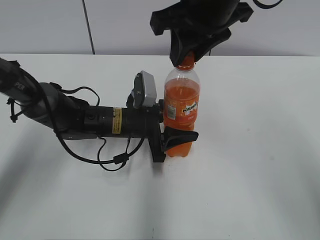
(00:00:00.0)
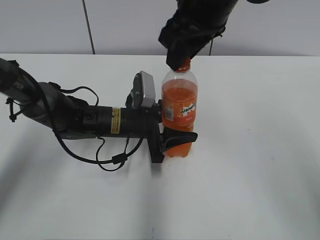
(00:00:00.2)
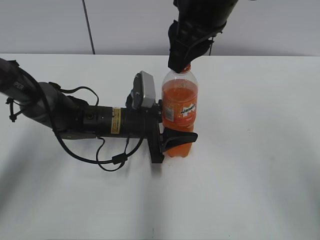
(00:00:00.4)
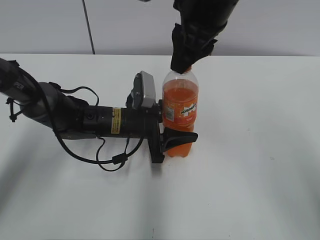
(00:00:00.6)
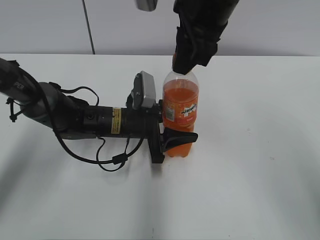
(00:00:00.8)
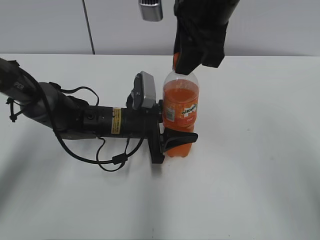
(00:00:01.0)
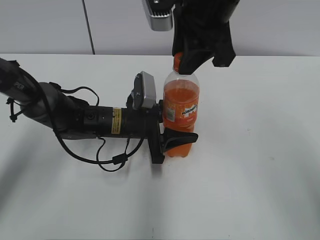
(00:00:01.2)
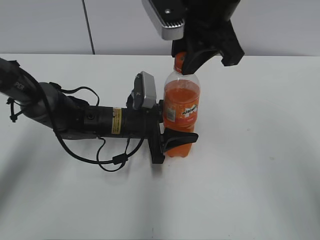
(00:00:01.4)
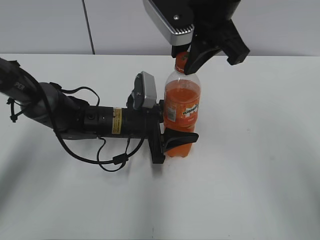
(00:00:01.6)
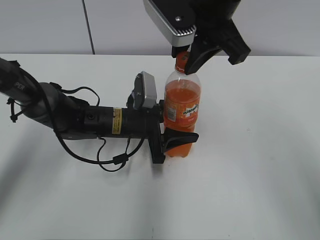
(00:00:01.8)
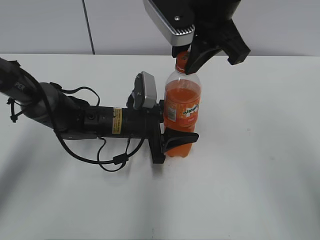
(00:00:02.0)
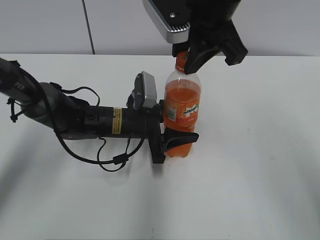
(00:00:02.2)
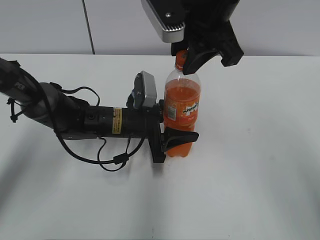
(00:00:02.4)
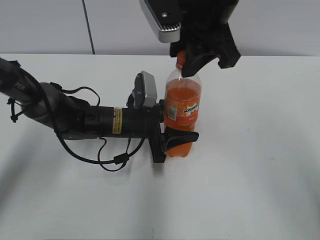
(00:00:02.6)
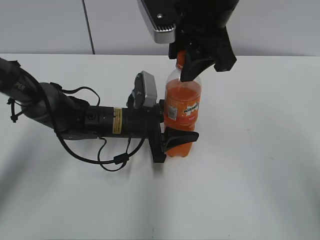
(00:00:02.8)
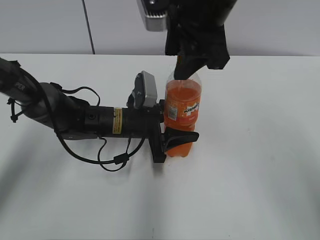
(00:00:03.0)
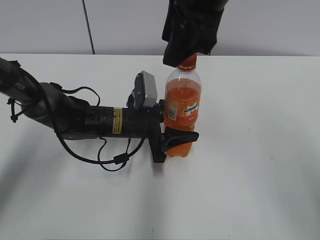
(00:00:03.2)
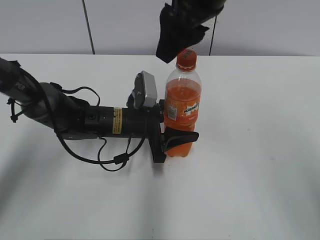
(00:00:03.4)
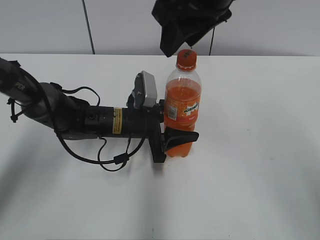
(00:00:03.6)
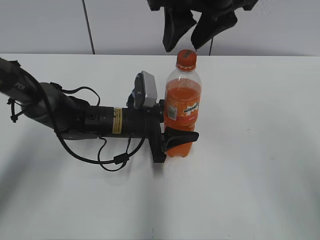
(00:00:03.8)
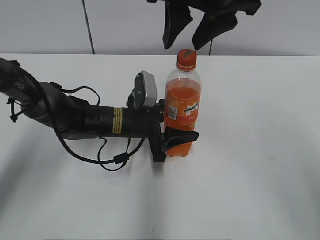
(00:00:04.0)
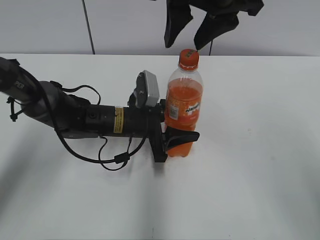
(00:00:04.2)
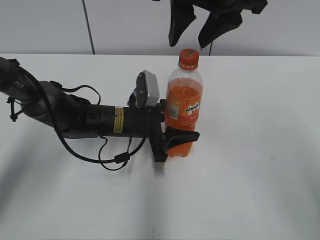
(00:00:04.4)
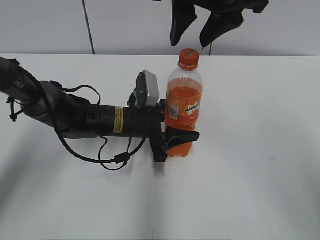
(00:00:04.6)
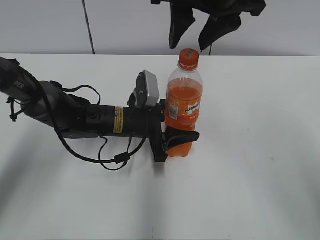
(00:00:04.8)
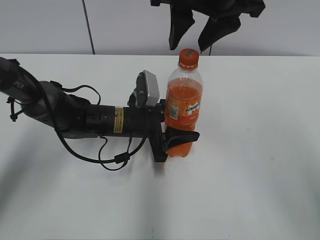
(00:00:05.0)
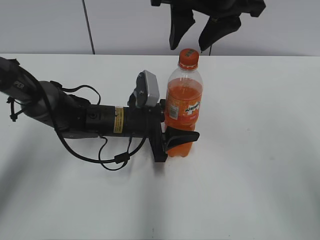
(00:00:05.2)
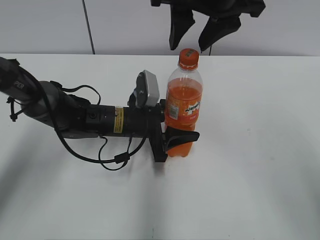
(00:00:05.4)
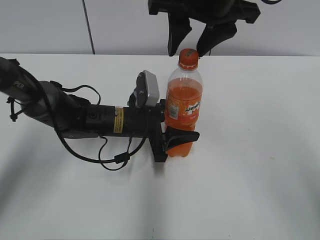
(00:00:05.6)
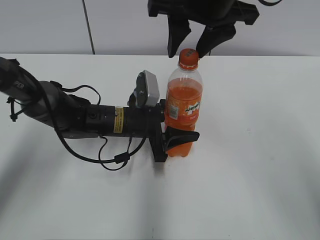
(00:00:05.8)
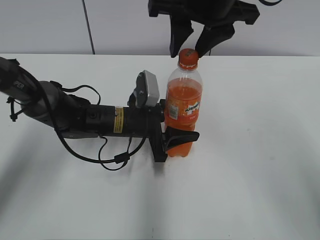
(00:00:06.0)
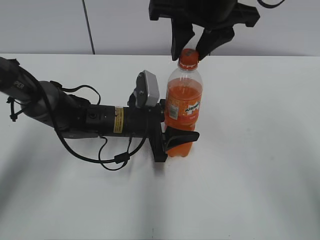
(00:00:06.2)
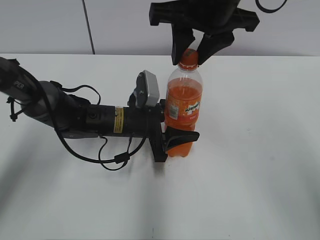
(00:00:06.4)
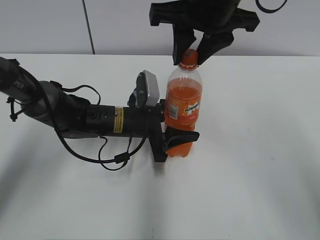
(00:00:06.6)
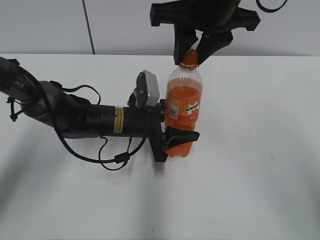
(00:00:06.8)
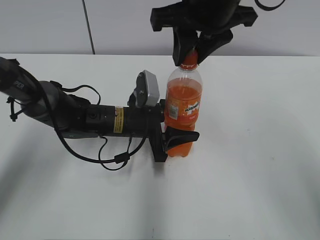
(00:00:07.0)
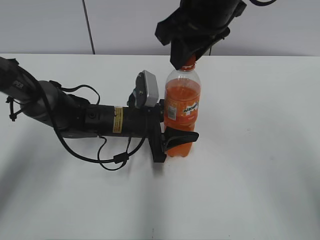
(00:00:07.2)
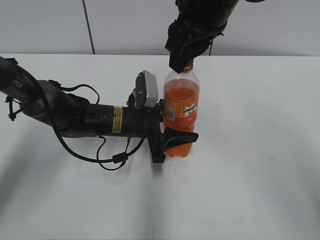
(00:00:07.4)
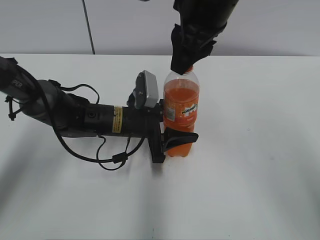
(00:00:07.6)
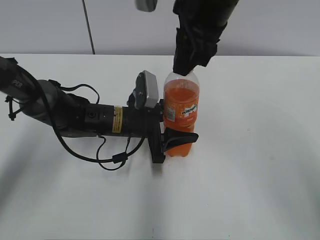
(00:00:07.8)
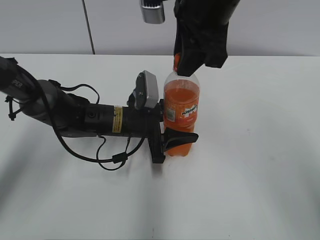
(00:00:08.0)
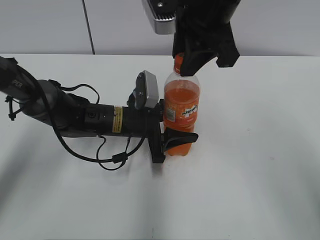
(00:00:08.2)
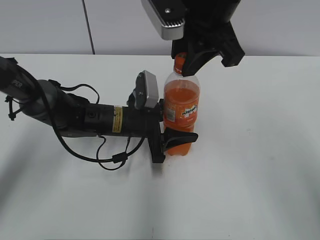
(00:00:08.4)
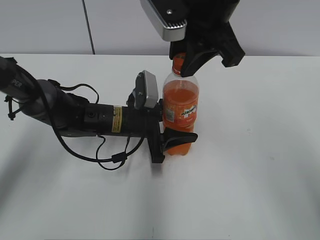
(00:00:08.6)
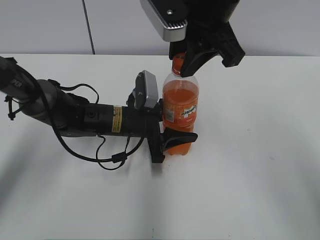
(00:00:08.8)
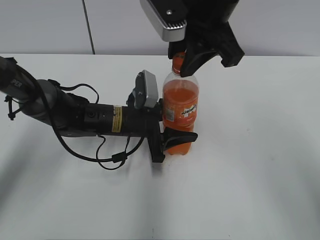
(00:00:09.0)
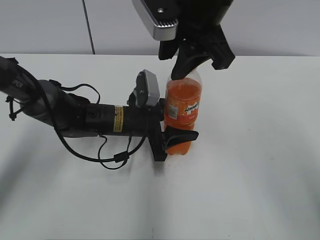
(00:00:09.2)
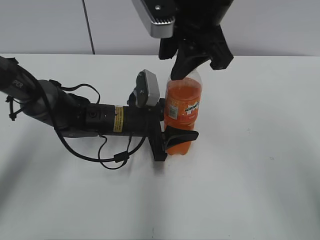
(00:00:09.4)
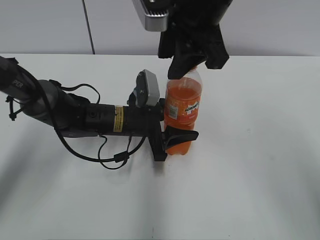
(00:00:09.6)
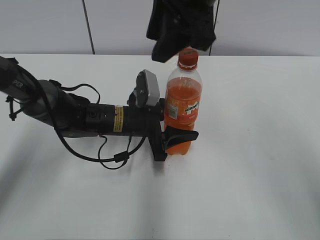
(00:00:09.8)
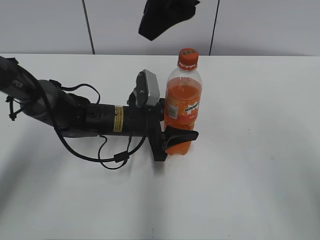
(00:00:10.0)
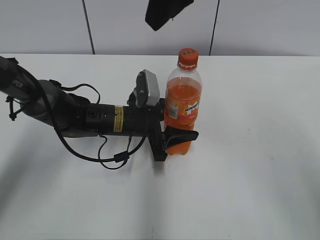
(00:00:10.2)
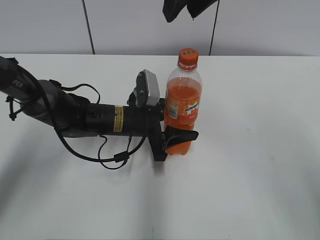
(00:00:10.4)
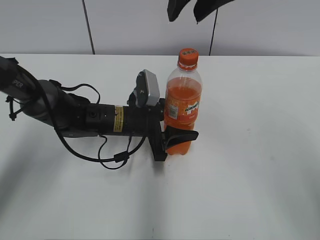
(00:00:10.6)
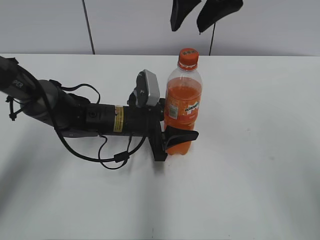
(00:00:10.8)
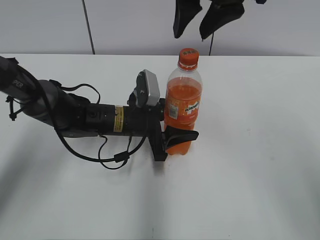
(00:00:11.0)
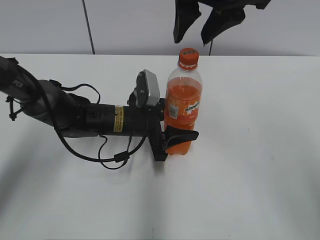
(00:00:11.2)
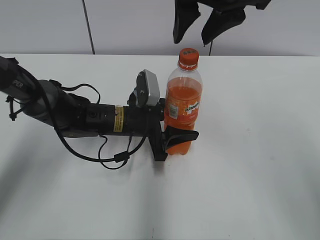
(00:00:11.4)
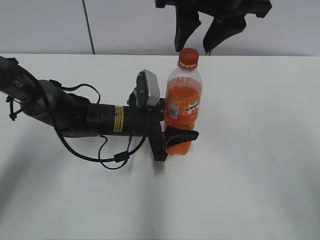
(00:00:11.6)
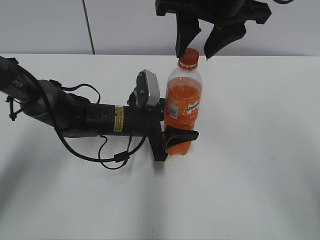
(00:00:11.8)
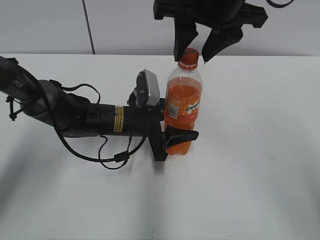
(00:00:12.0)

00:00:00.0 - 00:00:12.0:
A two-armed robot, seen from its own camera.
00:00:01.6 - 00:00:03.0: The right gripper opens its fingers.
00:00:04.4 - 00:00:06.0: The grippers stay close to where they were, moving slightly.
00:00:09.0 - 00:00:10.4: The right gripper travels upward by roughly 5 cm.

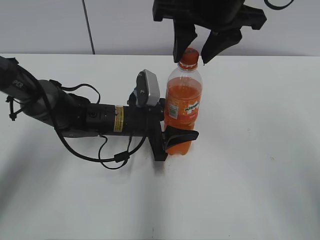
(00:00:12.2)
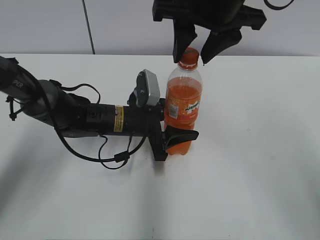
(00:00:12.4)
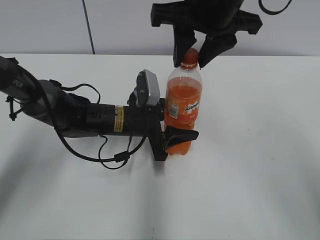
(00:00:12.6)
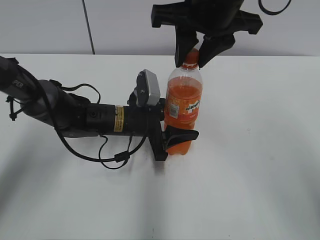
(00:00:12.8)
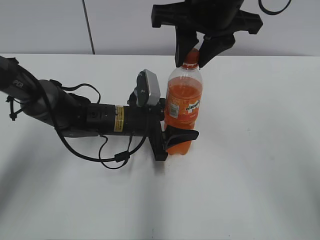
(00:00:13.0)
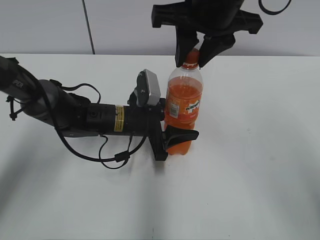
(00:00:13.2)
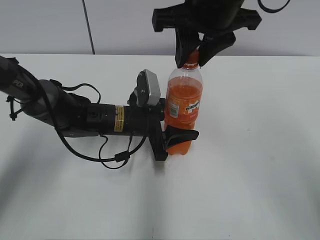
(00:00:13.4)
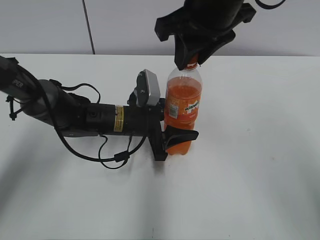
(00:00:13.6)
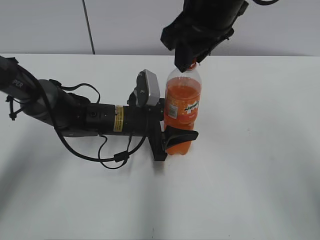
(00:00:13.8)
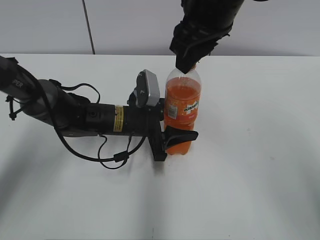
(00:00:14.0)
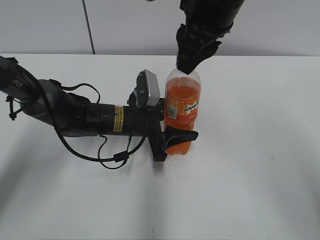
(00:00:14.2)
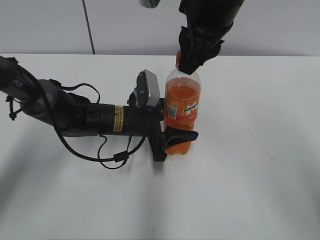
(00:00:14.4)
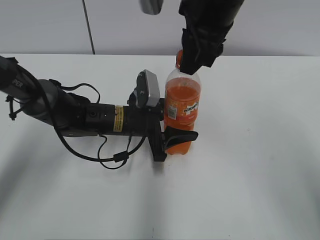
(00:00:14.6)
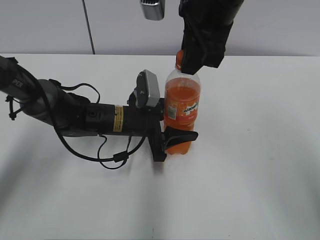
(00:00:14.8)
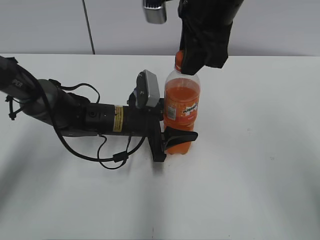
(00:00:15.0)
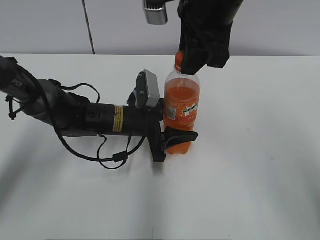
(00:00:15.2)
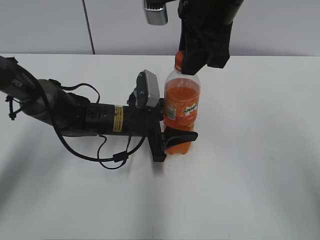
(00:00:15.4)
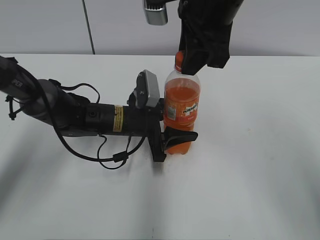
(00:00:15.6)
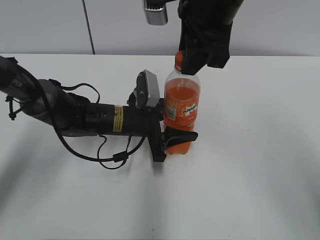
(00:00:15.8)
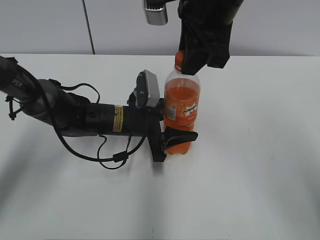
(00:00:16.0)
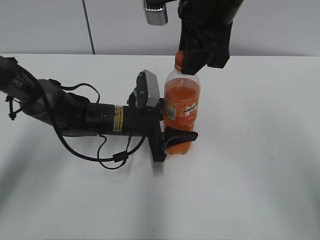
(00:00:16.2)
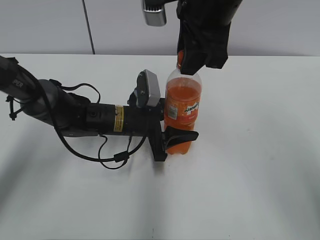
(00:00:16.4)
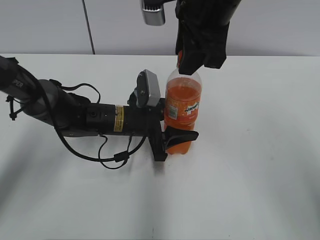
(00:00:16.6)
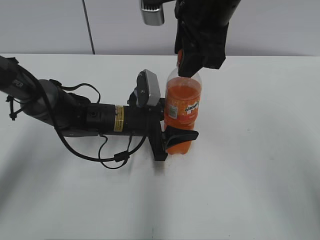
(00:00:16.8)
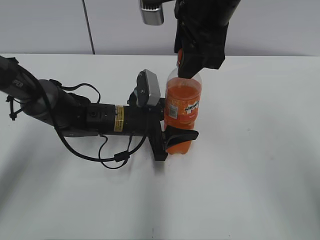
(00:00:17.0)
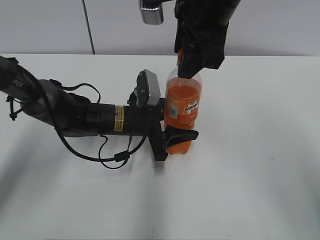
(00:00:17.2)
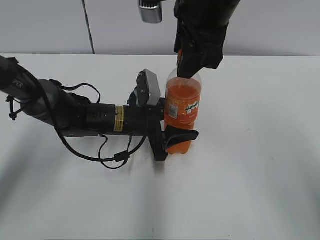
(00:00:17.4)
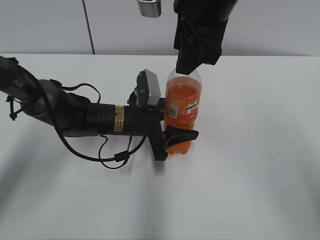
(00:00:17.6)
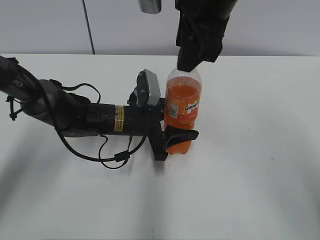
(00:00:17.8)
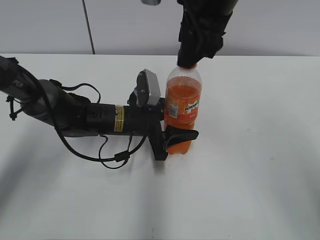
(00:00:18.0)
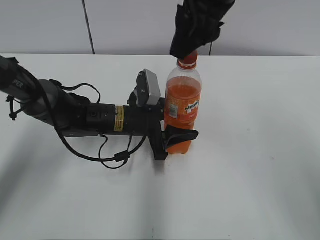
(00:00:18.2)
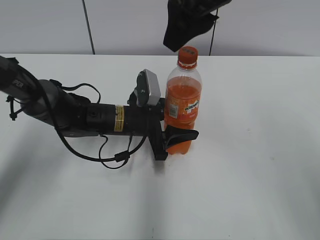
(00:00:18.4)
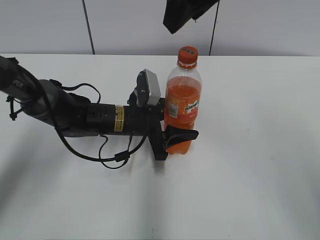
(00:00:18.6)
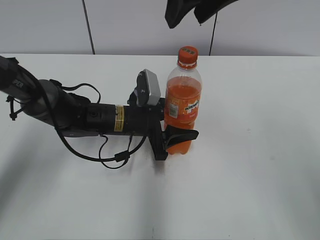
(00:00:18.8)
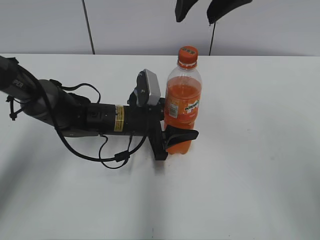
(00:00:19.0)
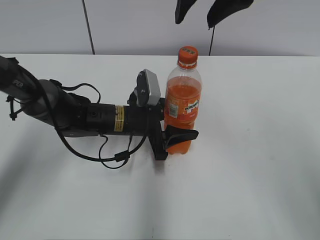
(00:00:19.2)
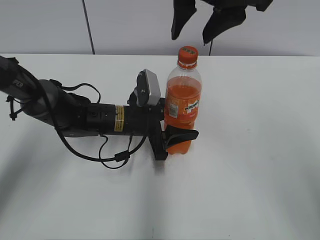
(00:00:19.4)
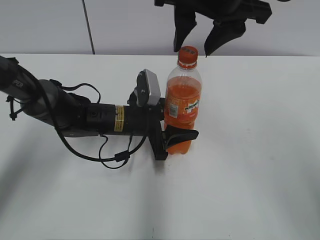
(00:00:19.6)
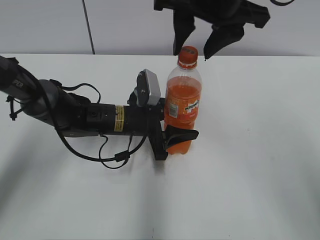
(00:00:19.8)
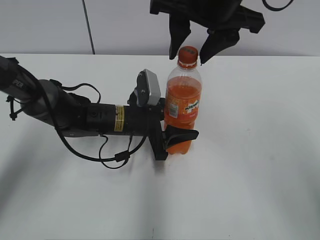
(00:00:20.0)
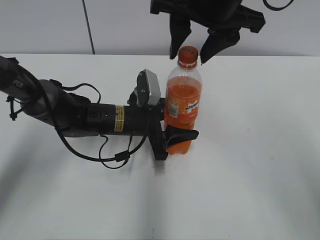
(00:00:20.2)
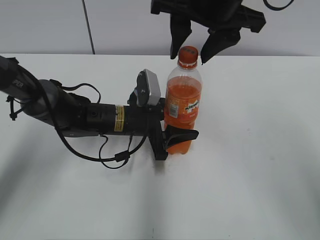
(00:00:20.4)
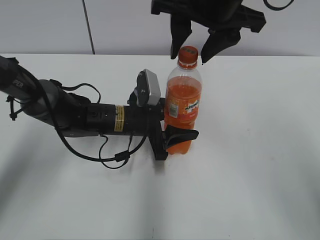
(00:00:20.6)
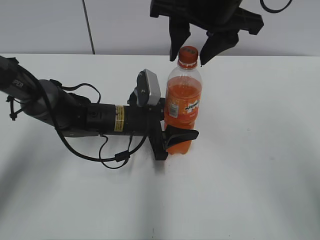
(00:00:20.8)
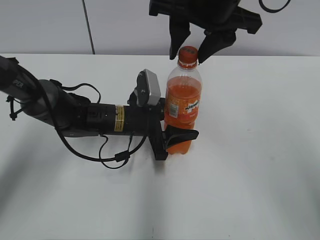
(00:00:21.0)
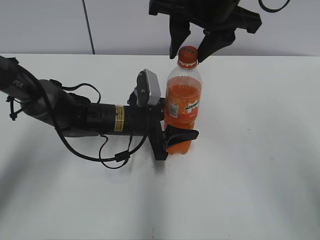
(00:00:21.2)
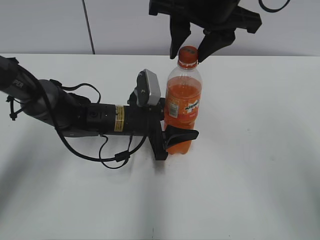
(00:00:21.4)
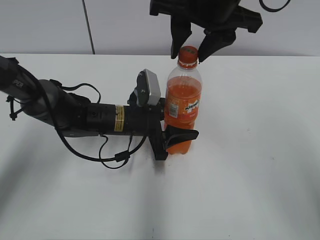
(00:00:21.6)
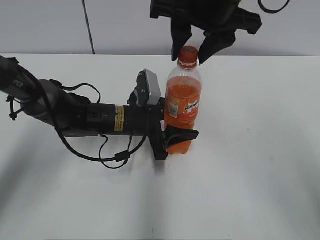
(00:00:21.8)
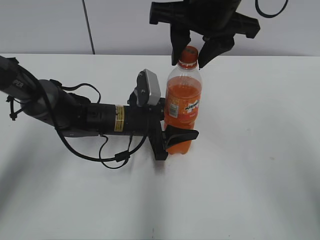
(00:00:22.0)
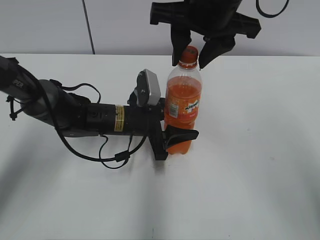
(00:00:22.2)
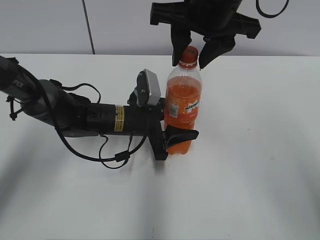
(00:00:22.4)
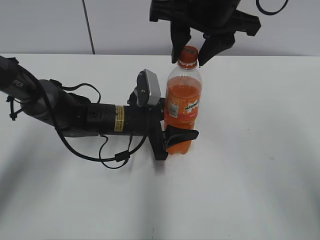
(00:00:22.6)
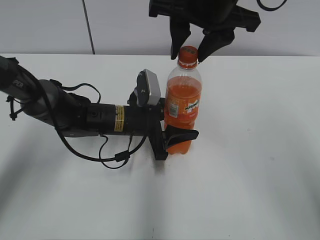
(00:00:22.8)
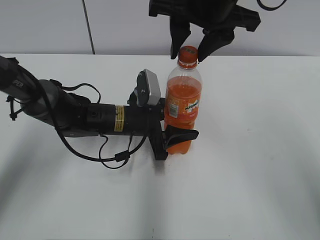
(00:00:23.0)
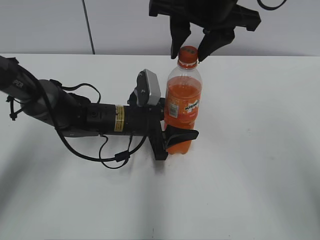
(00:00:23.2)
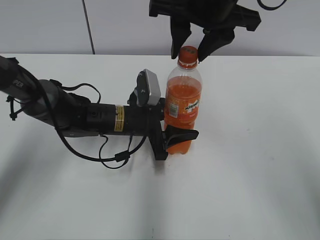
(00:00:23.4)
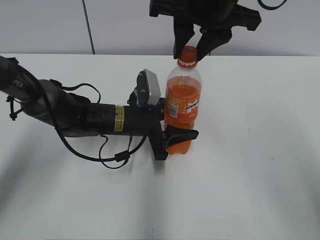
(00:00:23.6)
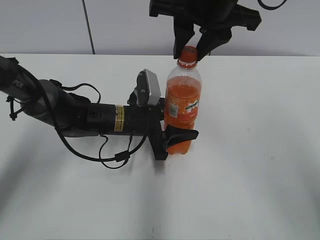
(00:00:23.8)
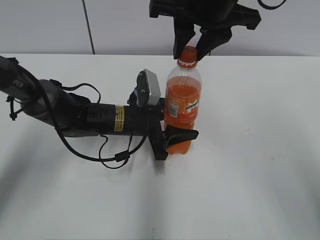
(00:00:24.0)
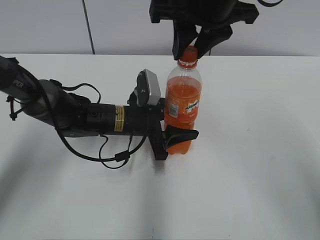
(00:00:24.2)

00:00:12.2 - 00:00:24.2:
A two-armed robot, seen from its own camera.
00:00:12.2 - 00:00:13.8: The right gripper closes.
00:00:15.2 - 00:00:16.6: The two grippers keep their place.
00:00:16.6 - 00:00:18.2: The grippers move only a little.
00:00:19.8 - 00:00:21.2: The two grippers keep their place.
00:00:21.2 - 00:00:22.6: The two grippers keep their place.
00:00:22.6 - 00:00:24.2: The grippers make only small movements.
